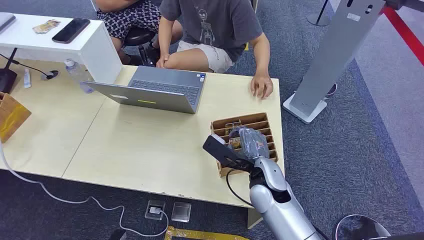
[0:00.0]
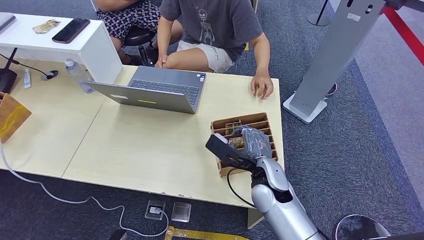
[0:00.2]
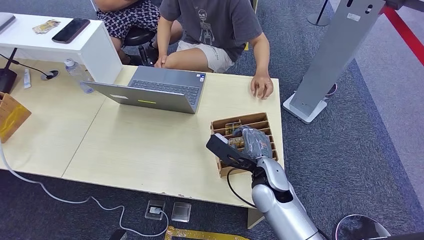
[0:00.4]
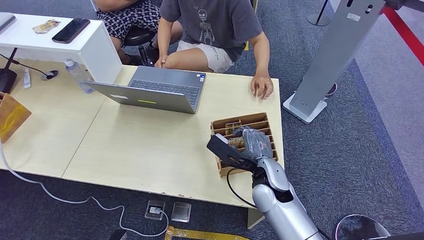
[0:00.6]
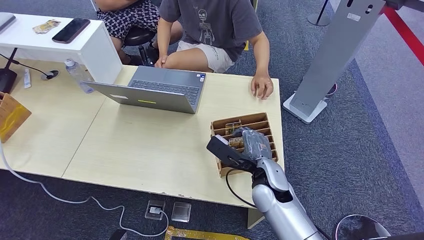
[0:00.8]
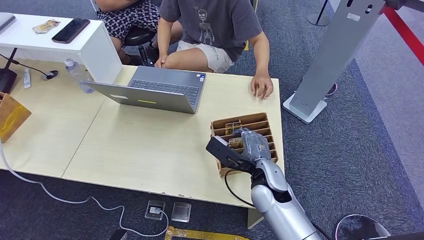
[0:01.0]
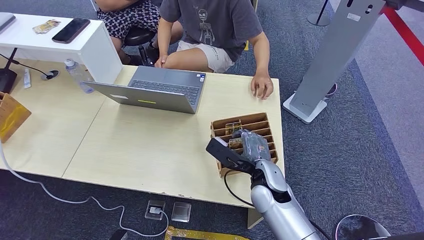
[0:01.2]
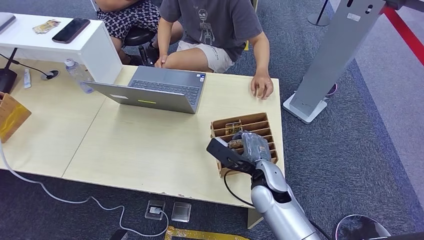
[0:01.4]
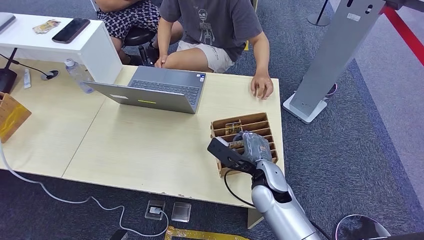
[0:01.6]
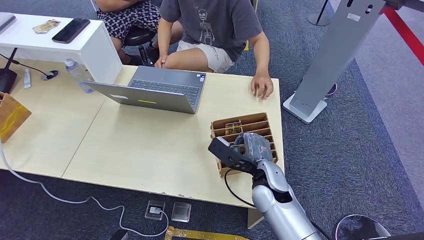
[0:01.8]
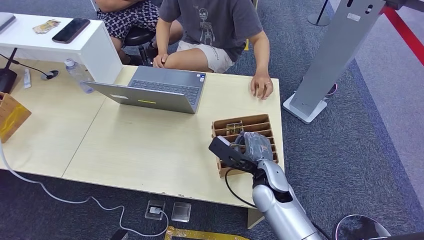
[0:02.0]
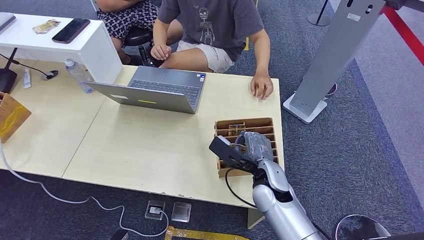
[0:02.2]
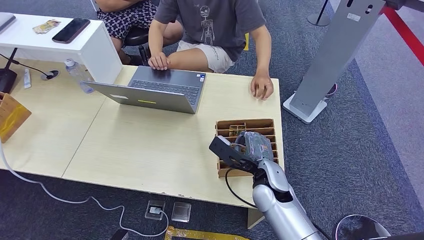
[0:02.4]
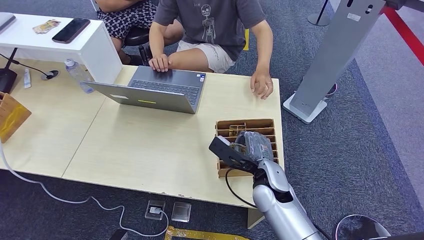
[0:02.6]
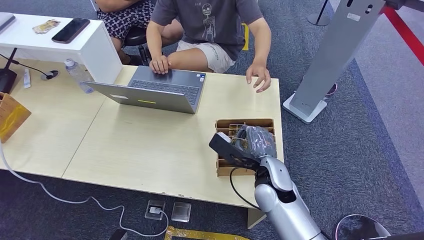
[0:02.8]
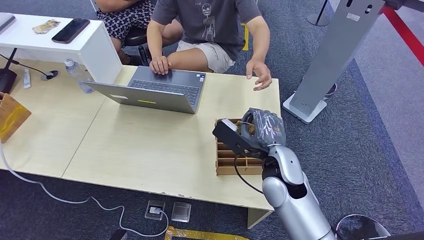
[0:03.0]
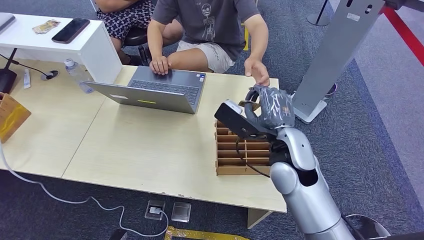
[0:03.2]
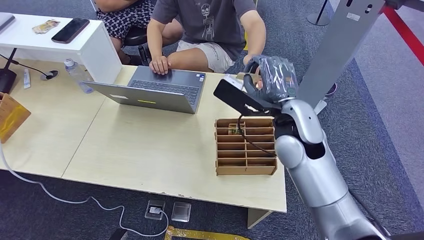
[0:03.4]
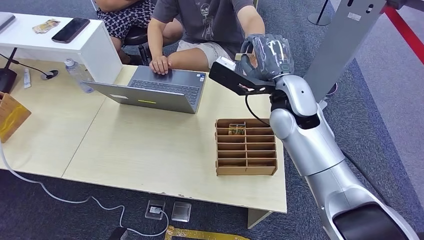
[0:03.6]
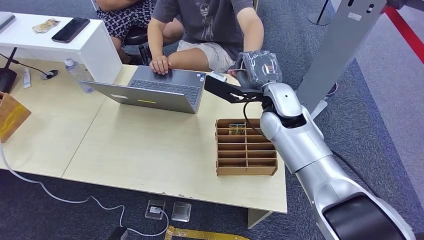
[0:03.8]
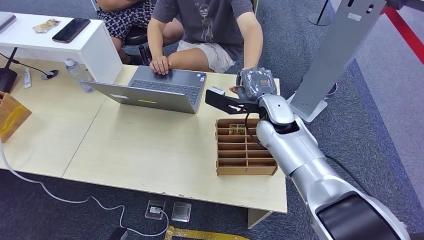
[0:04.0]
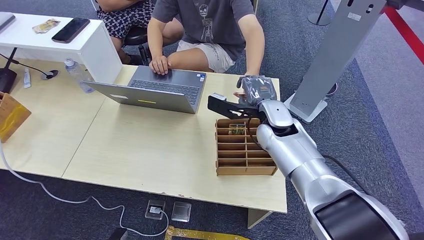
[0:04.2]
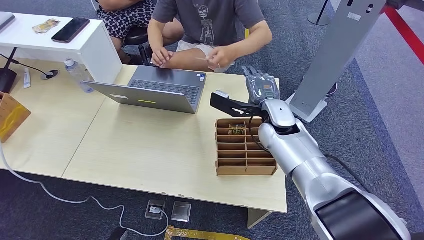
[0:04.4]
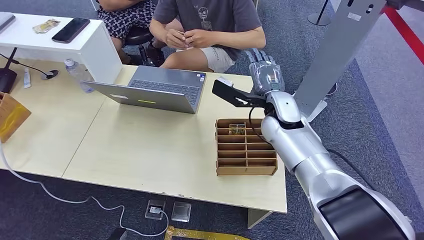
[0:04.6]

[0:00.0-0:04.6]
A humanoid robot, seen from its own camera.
Step, 0:00.0 to 0:03.2: Pick up the room card from the card holder.
Step, 0:03.6 to 0:04.4: Hand the room card to the target.
0:01.6 to 0:03.0: The right hand heads upward, covering some 5 cm.
0:03.0 to 0:04.6: The right hand heads forward and upward, covering approximately 15 cm.
